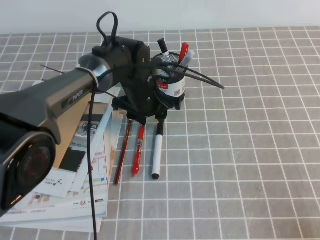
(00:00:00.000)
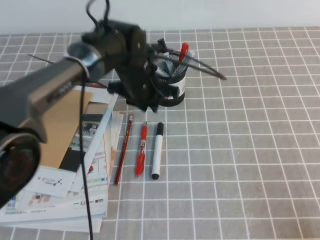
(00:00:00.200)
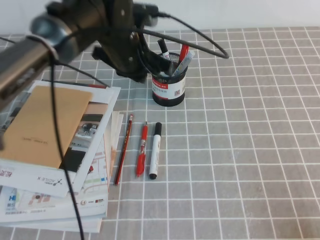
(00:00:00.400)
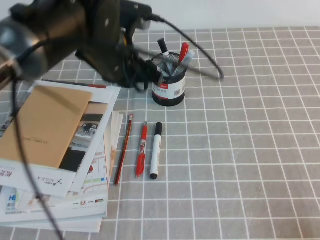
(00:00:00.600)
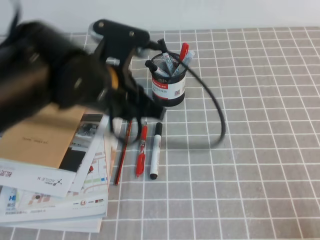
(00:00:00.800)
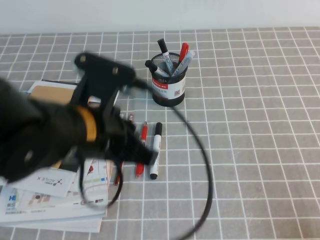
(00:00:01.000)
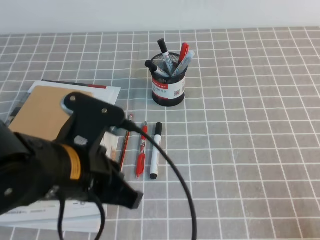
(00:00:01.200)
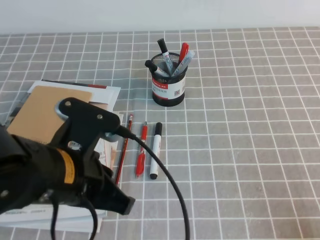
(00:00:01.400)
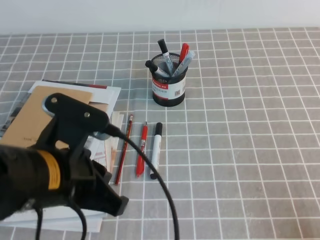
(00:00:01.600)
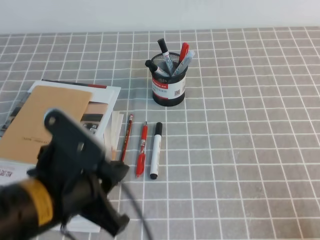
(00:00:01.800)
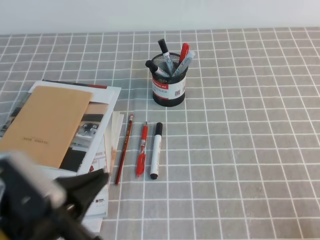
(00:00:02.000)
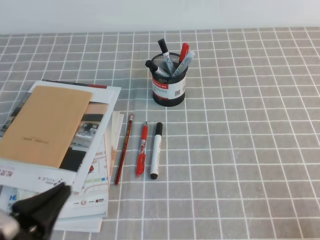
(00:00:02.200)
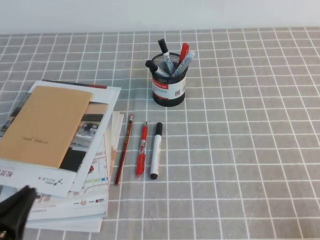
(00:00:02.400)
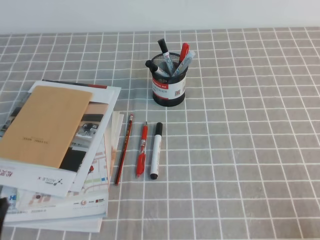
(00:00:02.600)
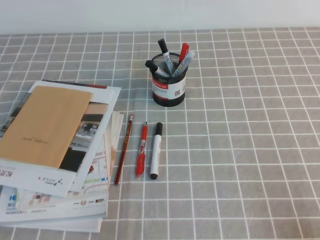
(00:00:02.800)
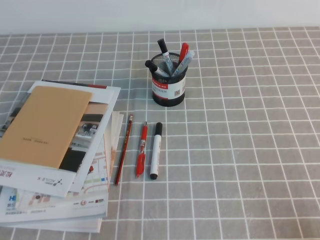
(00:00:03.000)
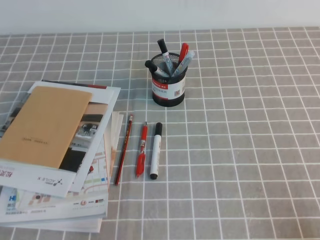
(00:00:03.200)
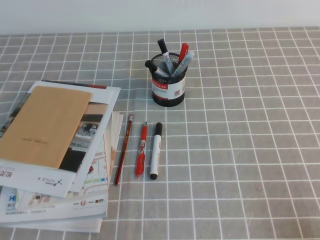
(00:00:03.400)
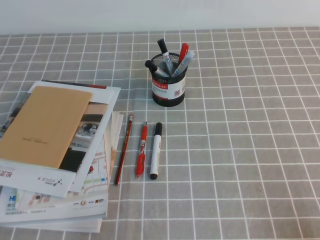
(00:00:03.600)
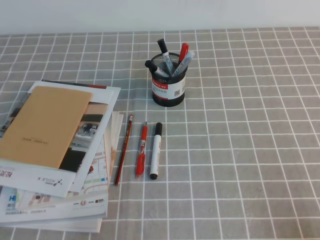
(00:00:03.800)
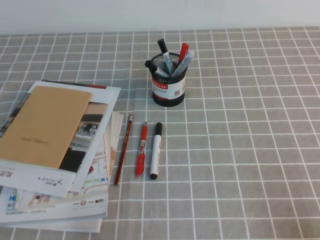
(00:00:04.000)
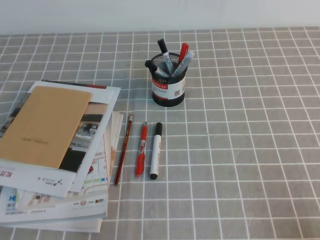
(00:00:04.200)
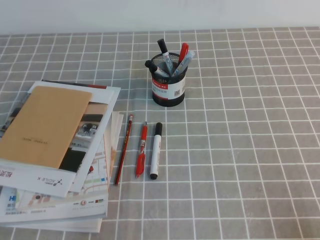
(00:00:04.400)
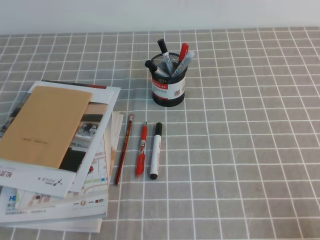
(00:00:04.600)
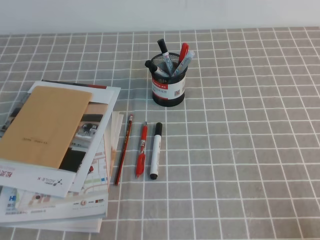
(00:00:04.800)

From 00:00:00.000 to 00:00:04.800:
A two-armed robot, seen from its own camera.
Step, from 00:00:00.000 to 00:00:04.800: Pick up the pen from the pen holder.
From 00:00:00.000 to 00:00:01.600: The left gripper goes about 25 cm backward, and closes up.
From 00:00:01.600 to 00:00:03.200: The left gripper shifts some 20 cm to the left, downward and backward.
From 00:00:03.200 to 00:00:04.800: Neither gripper changes place.

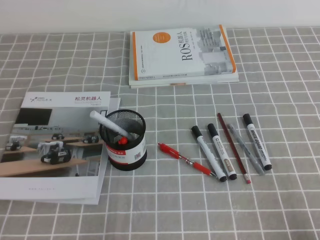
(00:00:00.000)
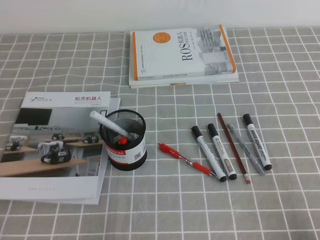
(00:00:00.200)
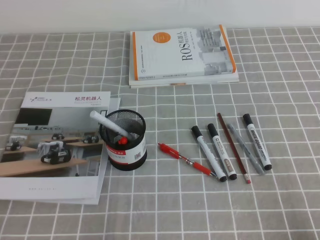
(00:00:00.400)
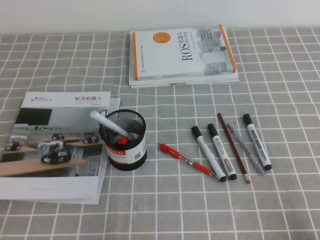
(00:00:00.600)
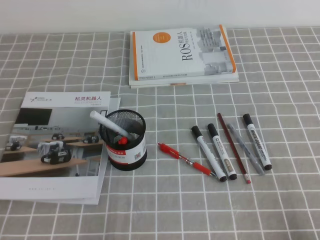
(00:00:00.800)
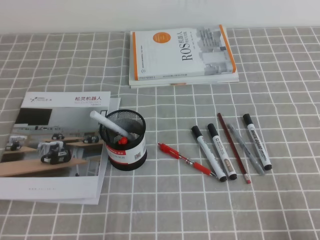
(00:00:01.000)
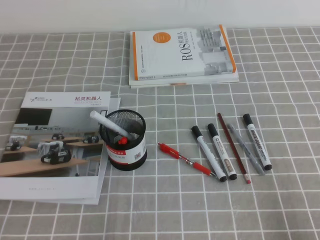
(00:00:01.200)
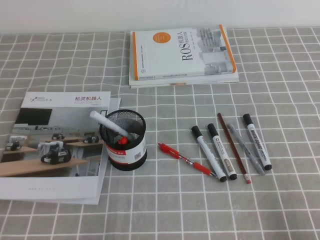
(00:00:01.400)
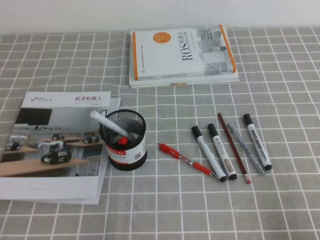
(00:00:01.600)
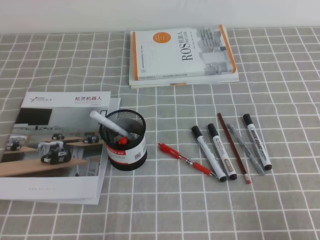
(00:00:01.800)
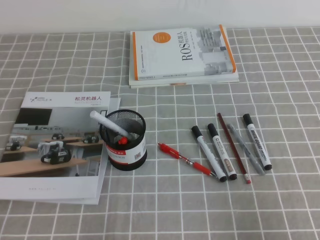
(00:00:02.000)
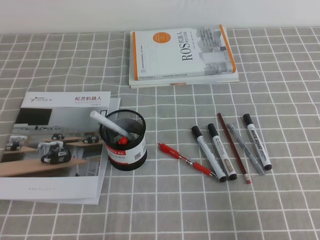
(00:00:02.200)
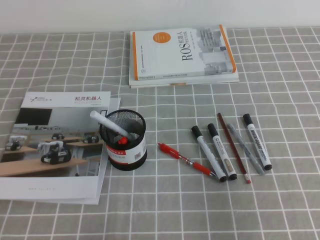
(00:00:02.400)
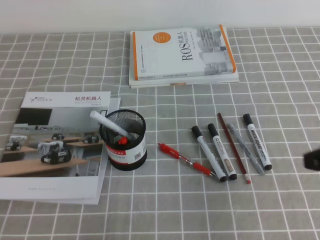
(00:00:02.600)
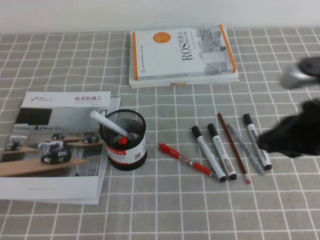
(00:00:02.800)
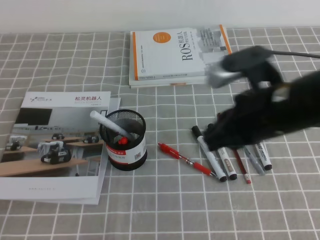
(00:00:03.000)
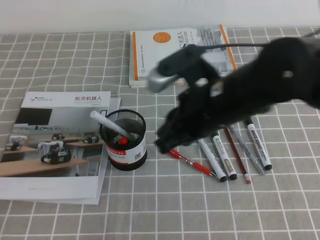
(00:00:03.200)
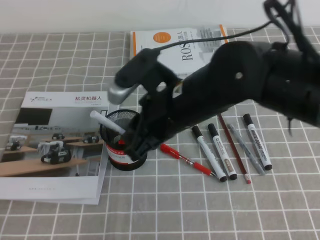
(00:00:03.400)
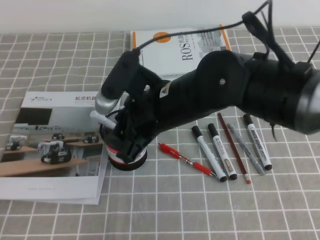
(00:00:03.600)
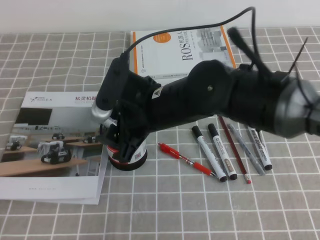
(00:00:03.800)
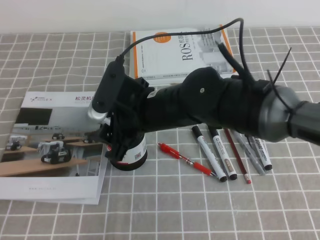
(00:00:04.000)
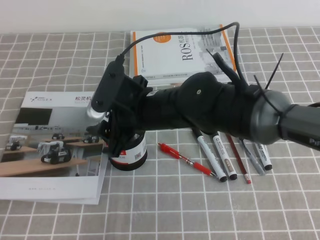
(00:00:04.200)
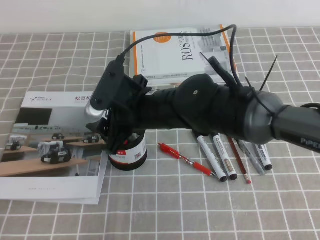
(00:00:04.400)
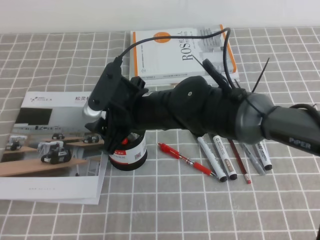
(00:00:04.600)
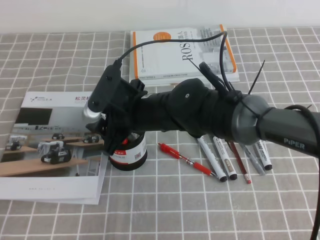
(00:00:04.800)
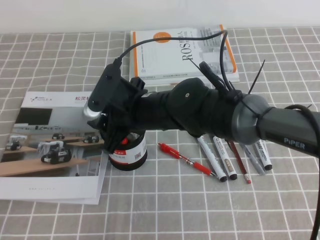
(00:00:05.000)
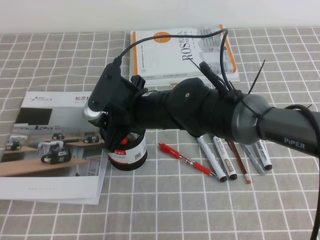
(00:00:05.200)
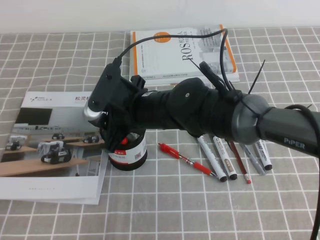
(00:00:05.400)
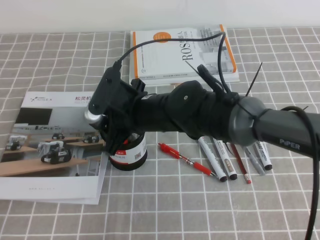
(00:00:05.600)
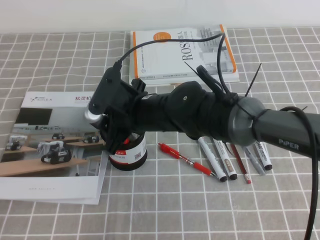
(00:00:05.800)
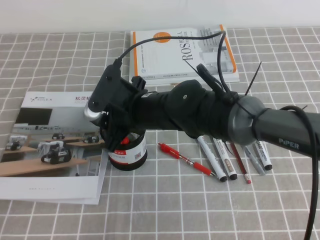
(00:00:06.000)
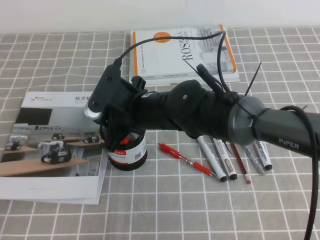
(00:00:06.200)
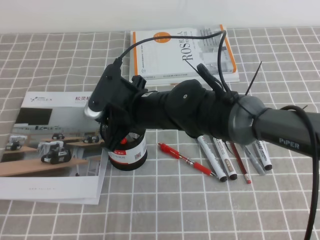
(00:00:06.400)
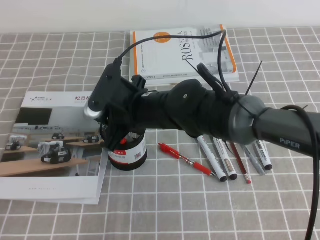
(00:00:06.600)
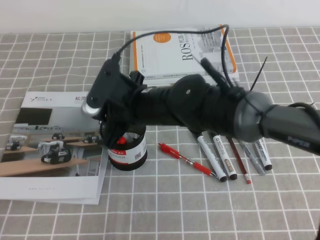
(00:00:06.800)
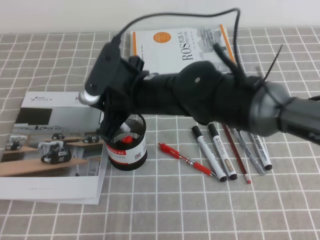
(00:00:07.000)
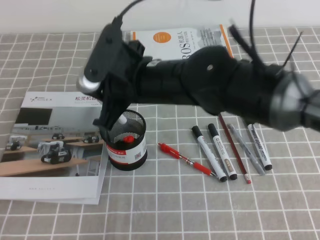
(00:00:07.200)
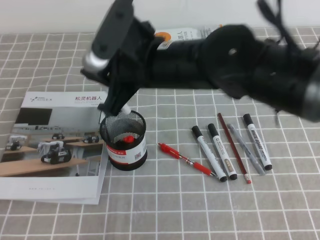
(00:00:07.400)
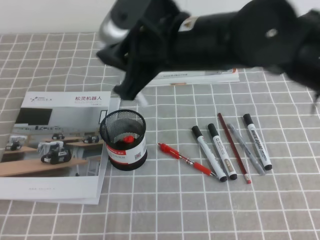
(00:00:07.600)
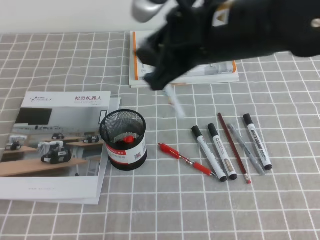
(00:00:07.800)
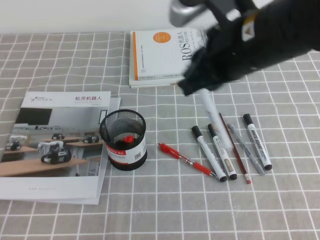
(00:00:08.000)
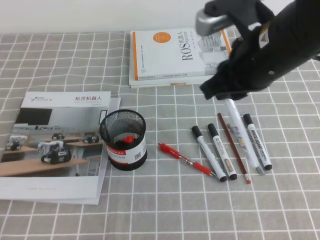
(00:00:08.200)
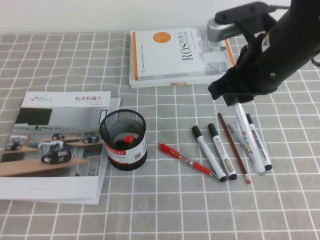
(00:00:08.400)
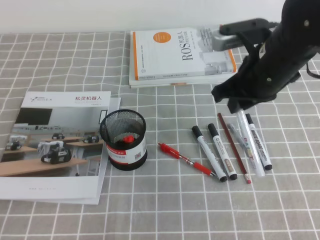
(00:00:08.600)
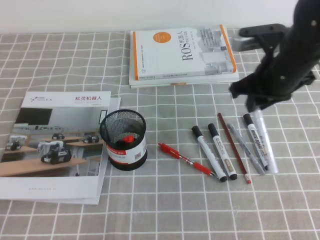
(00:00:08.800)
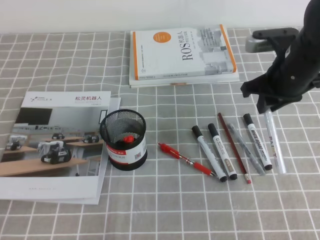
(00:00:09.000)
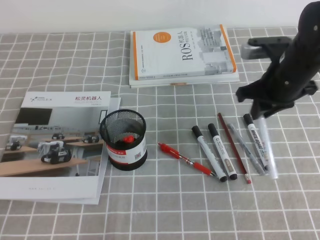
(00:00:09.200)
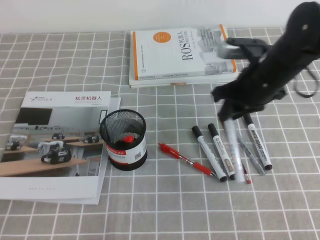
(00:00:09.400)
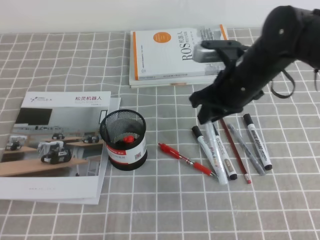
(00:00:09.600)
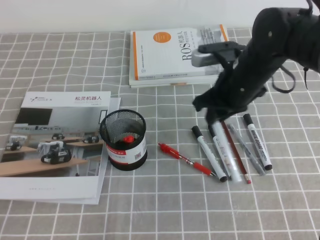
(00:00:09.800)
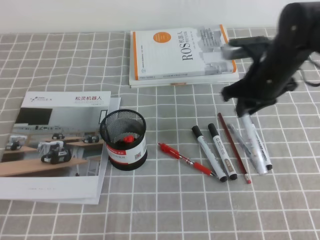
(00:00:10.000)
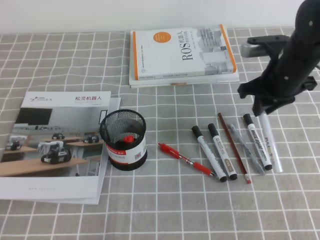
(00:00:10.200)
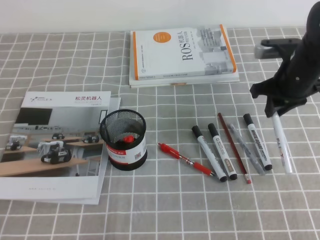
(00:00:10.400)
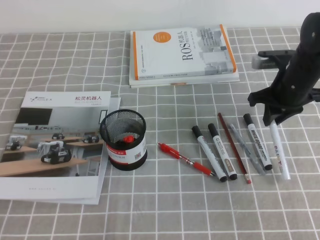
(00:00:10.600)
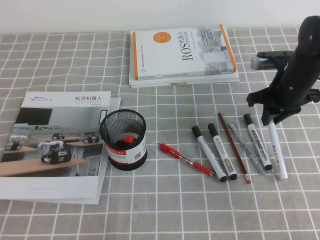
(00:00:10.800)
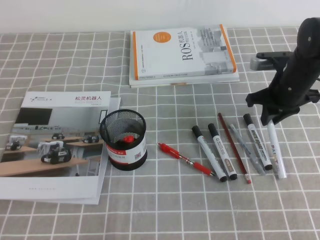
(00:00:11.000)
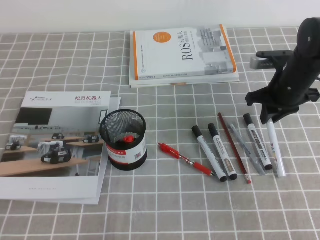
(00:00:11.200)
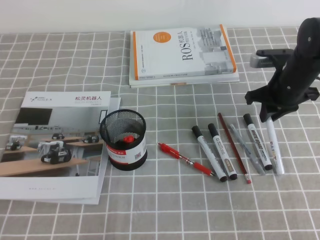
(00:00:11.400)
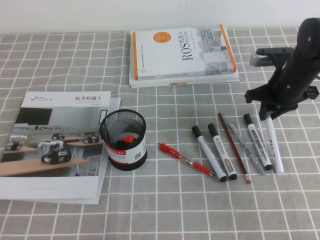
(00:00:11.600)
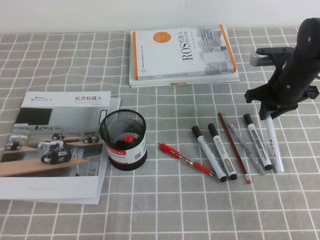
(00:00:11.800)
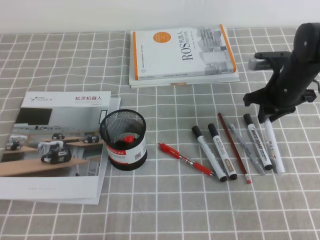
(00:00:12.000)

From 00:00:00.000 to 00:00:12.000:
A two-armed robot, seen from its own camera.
From 00:00:01.600 to 00:00:03.000: The right gripper moves forward, to the left and upward, roughly 25 cm.
From 00:00:03.000 to 00:00:04.400: The right gripper heads to the left, covering roughly 20 cm, and opens its fingers.
From 00:00:04.400 to 00:00:06.000: The right gripper closes.
From 00:00:06.000 to 00:00:07.600: The right gripper moves upward and to the right, about 15 cm.
From 00:00:07.600 to 00:00:09.000: The right gripper travels to the right, downward and forward by some 20 cm.
From 00:00:09.000 to 00:00:10.400: The right gripper goes to the left and returns, approximately 5 cm each way.
From 00:00:10.400 to 00:00:12.000: The right gripper changes place by approximately 5 cm.

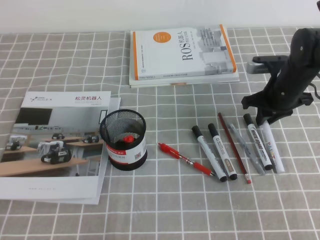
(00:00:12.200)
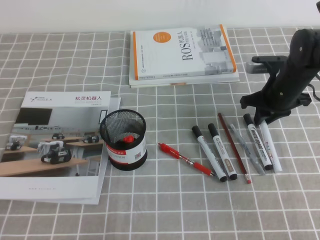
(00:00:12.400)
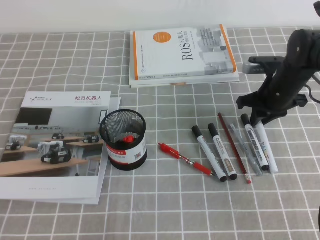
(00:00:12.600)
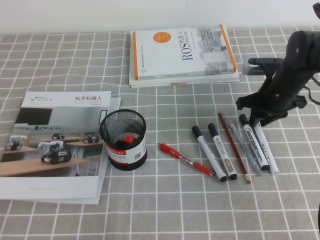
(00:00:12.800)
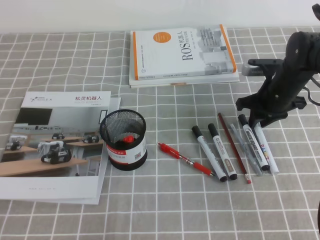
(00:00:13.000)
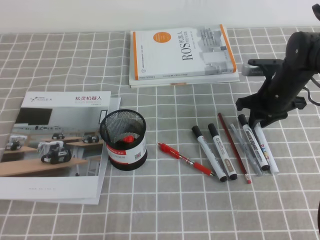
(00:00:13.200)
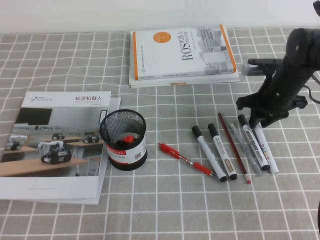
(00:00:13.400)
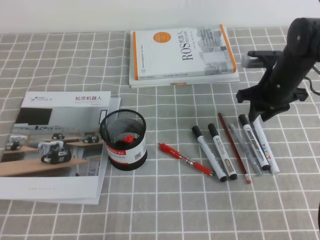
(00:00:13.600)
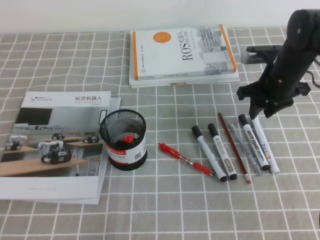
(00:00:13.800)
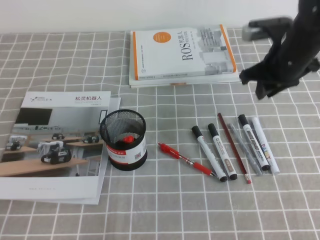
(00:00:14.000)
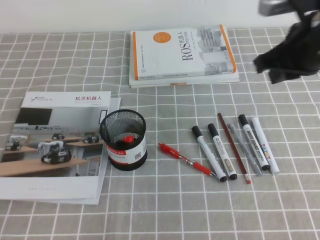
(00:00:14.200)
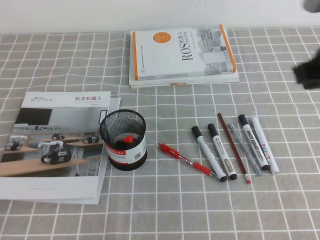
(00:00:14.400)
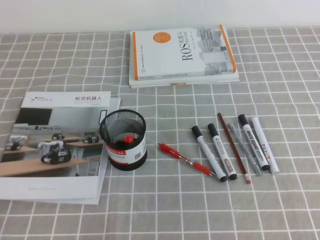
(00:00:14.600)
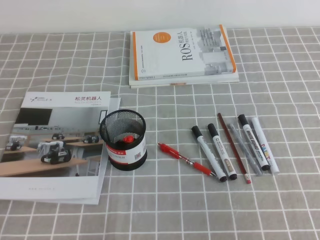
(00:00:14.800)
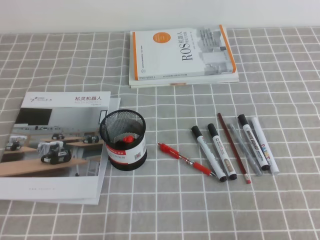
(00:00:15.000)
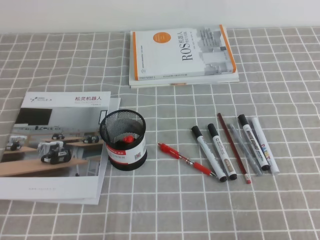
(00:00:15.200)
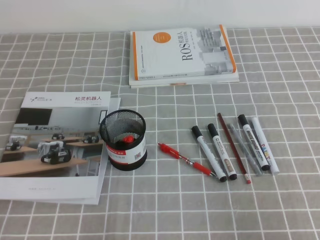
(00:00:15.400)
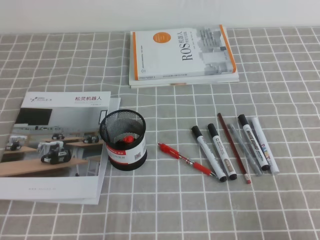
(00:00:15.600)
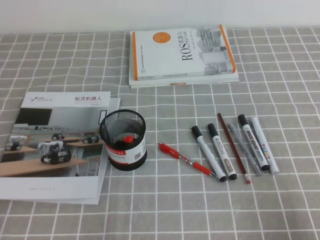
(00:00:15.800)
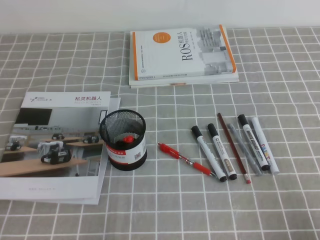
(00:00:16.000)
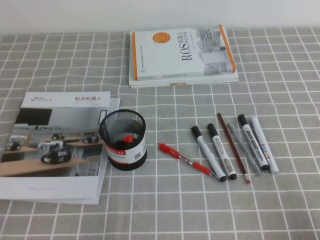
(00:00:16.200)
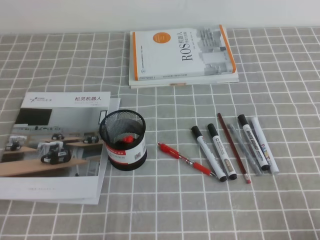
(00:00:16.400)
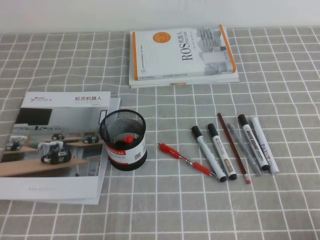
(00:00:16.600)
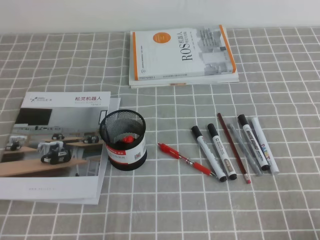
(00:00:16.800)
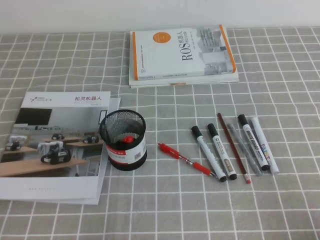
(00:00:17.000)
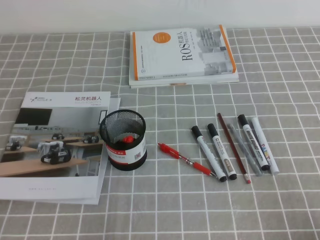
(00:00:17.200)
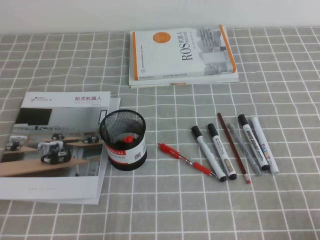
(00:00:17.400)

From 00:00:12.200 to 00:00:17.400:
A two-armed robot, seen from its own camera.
Step, from 00:00:12.200 to 00:00:17.400: Pick up the pen from the pen holder.
From 00:00:12.200 to 00:00:14.000: The right gripper travels upward by about 10 cm.
From 00:00:14.000 to 00:00:15.600: The right gripper shifts some 30 cm backward.
